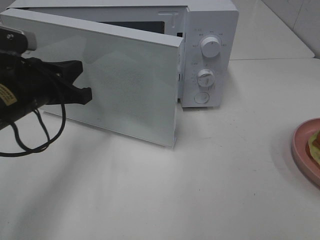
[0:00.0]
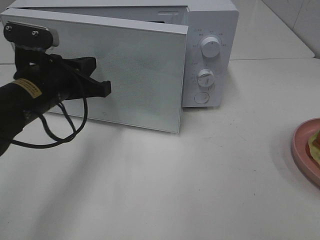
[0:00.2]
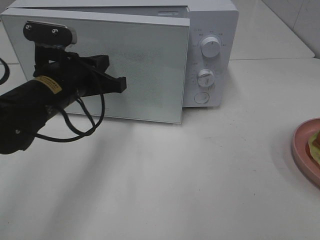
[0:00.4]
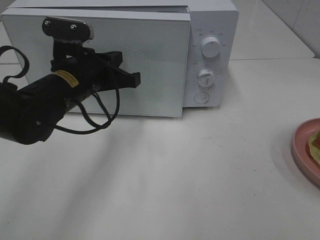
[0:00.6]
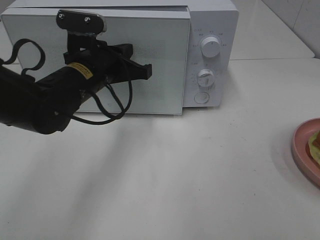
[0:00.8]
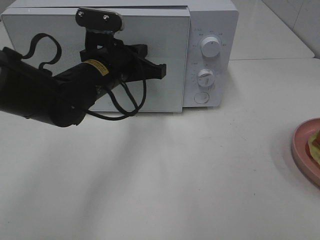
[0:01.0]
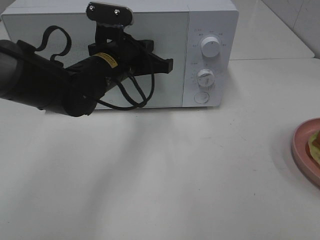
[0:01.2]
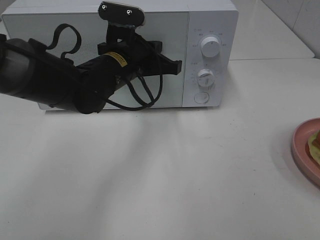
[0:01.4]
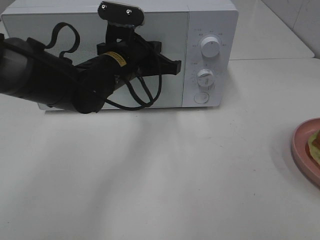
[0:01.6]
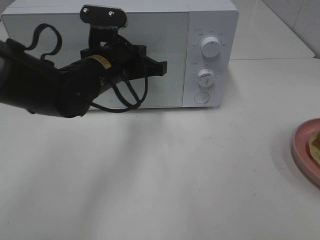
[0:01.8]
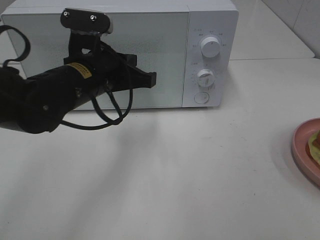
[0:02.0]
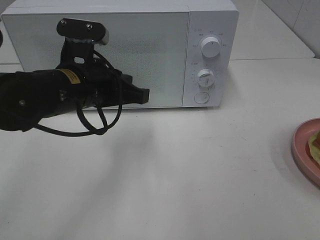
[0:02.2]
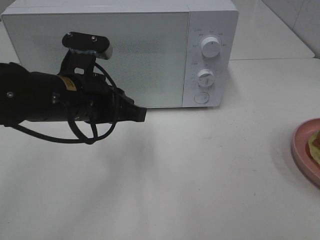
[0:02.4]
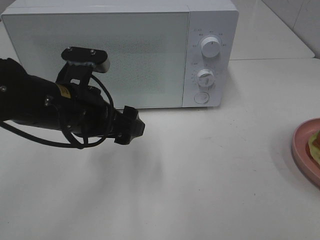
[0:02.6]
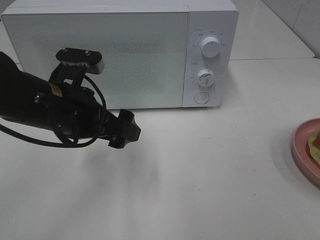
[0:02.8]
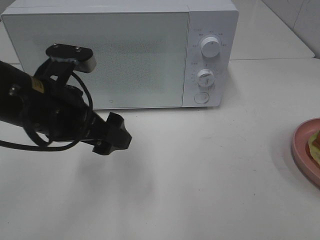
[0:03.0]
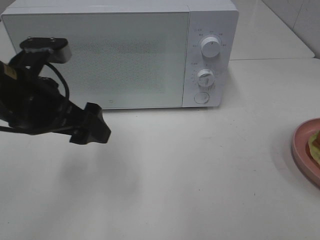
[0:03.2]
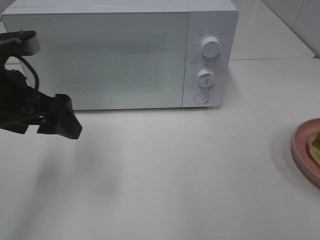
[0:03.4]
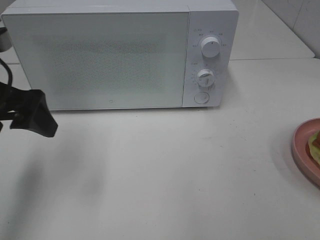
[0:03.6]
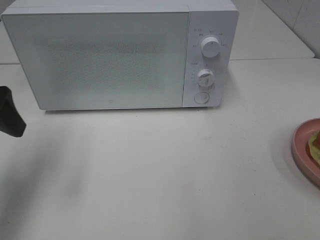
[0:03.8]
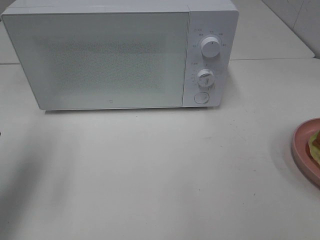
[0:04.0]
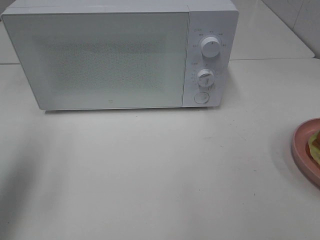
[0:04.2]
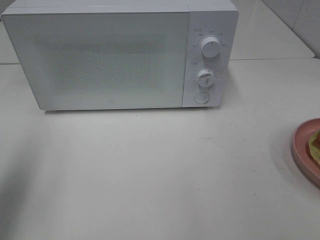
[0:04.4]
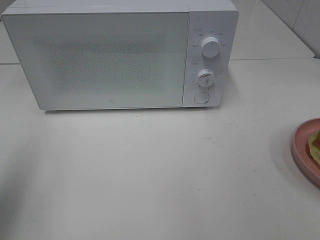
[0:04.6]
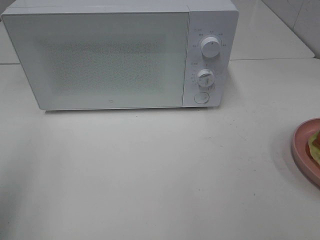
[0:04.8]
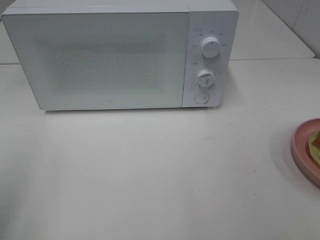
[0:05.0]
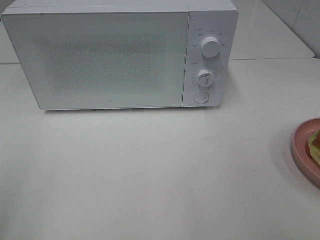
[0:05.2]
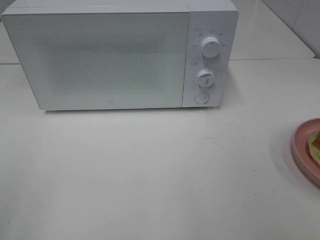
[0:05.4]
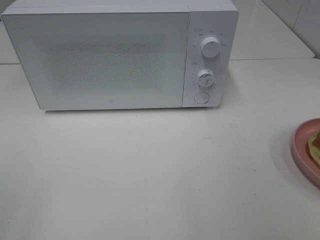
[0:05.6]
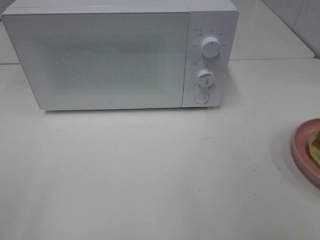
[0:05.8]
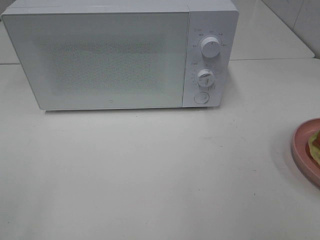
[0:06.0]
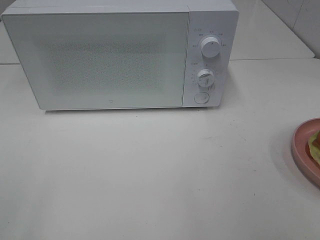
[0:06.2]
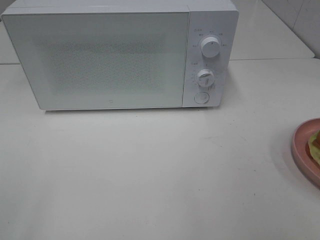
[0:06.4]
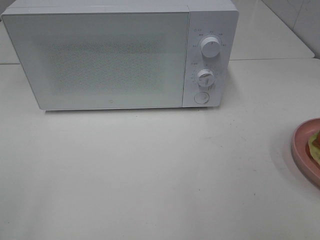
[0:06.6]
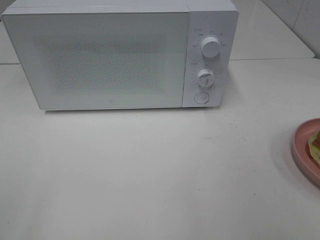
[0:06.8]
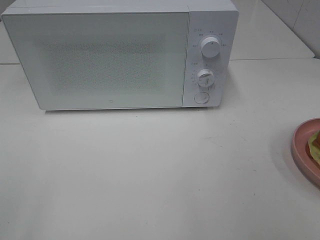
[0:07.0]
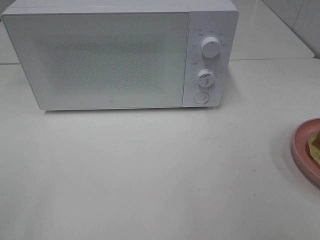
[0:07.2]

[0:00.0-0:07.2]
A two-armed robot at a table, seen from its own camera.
Task of the whole recording: Heat Sandwich.
0:00.0 to 0:01.4: The left gripper moves to the right and forward, roughly 15 cm.
0:01.4 to 0:02.8: The left gripper is displaced backward and to the left by about 15 cm, and opens its fingers.
0:02.8 to 0:04.4: The left gripper shifts about 20 cm to the left and upward.
0:04.4 to 0:05.8: The left gripper heads backward, covering approximately 15 cm.
0:05.8 to 0:07.2: Neither gripper changes place.

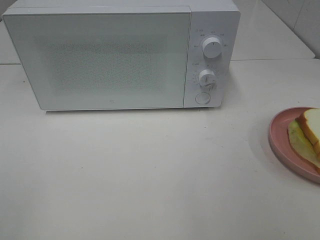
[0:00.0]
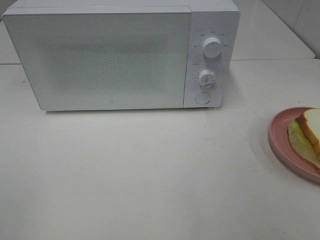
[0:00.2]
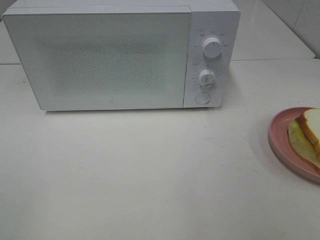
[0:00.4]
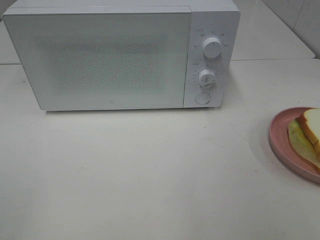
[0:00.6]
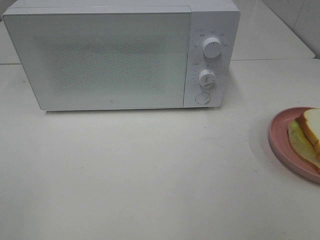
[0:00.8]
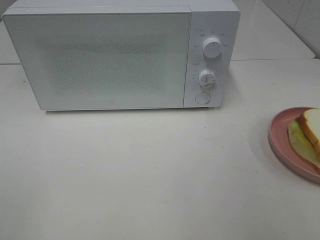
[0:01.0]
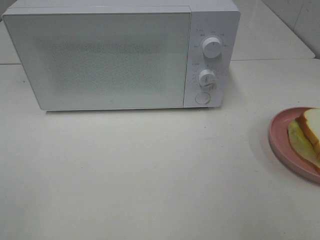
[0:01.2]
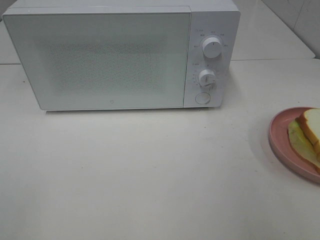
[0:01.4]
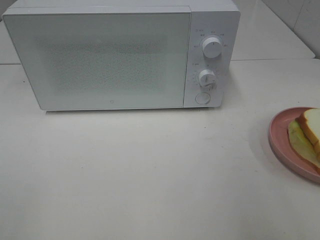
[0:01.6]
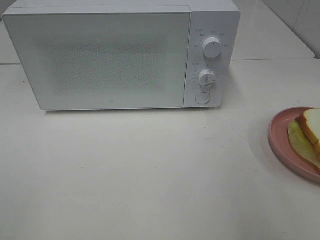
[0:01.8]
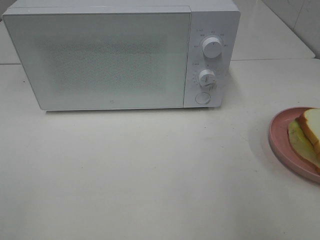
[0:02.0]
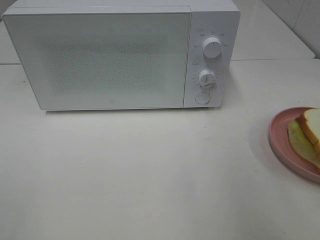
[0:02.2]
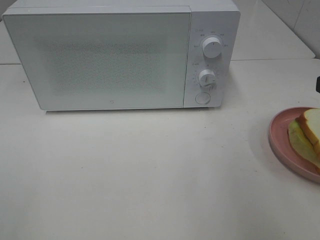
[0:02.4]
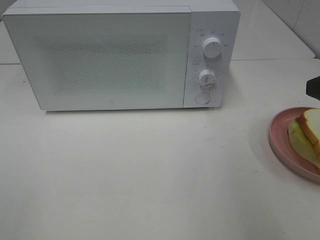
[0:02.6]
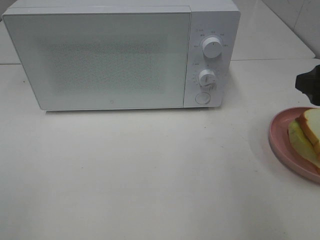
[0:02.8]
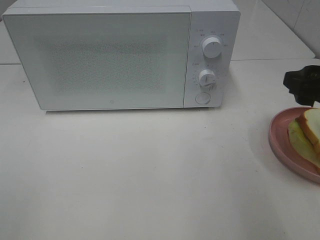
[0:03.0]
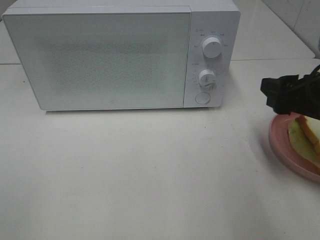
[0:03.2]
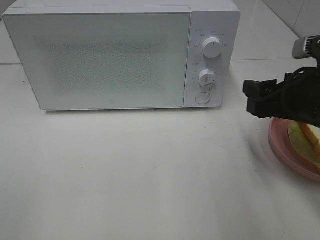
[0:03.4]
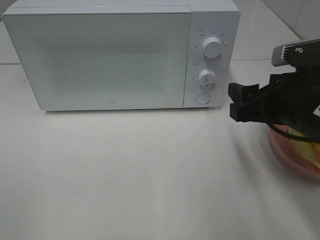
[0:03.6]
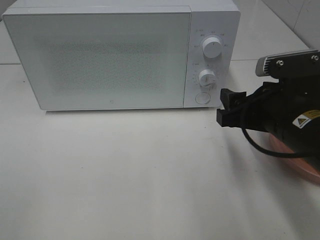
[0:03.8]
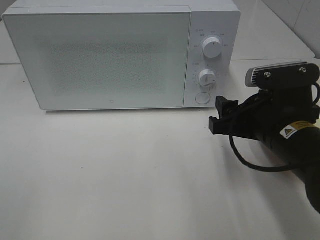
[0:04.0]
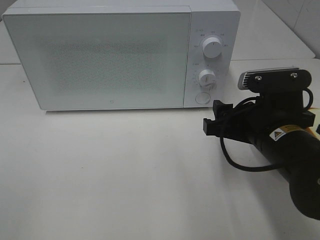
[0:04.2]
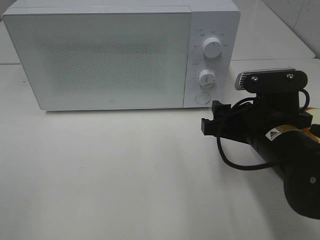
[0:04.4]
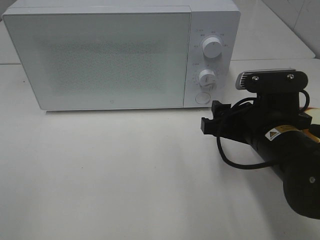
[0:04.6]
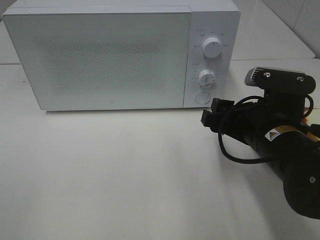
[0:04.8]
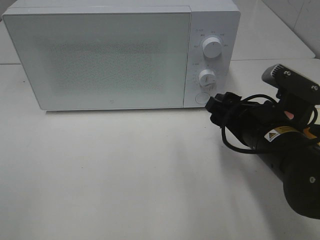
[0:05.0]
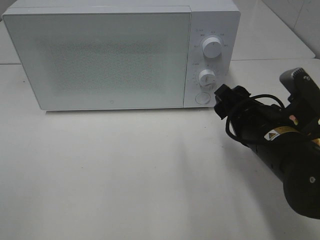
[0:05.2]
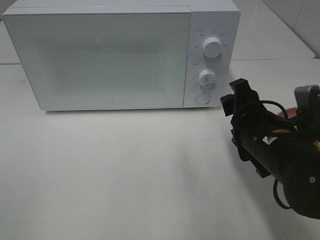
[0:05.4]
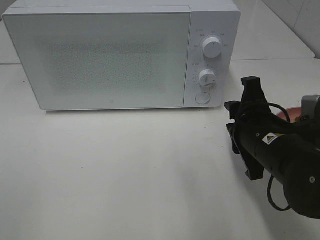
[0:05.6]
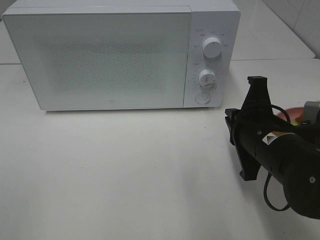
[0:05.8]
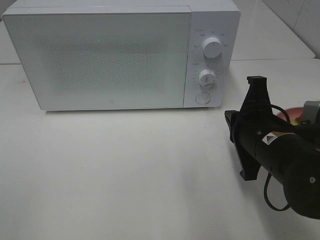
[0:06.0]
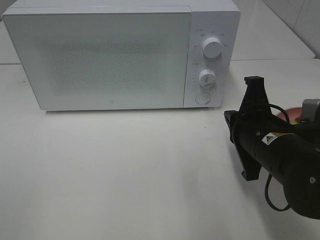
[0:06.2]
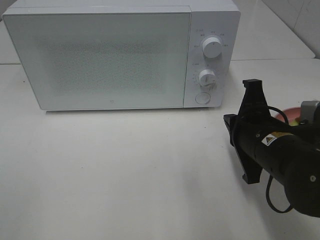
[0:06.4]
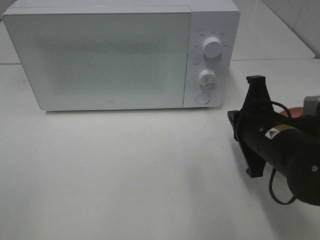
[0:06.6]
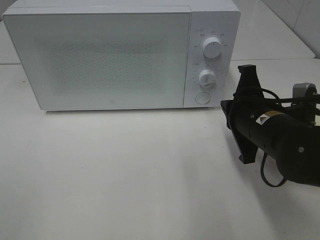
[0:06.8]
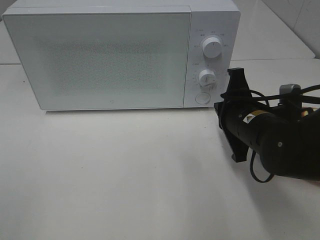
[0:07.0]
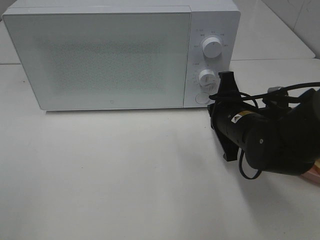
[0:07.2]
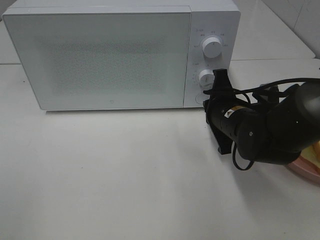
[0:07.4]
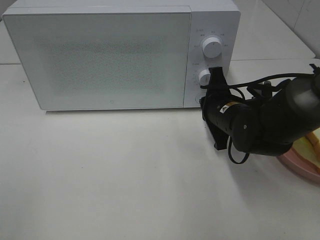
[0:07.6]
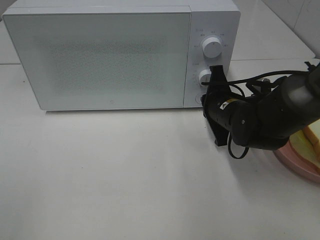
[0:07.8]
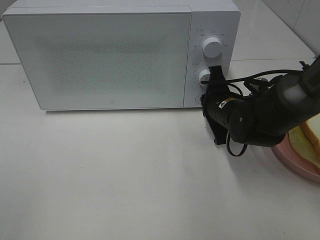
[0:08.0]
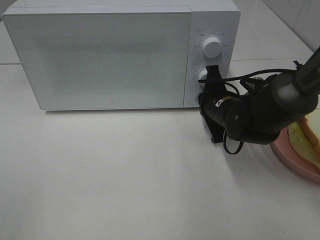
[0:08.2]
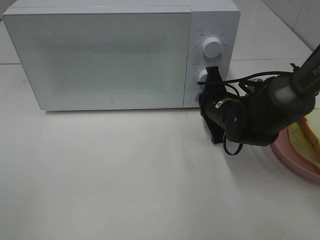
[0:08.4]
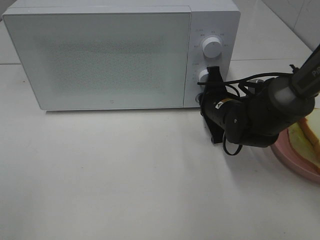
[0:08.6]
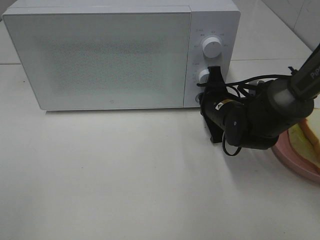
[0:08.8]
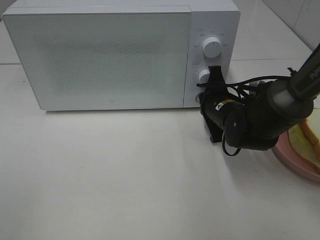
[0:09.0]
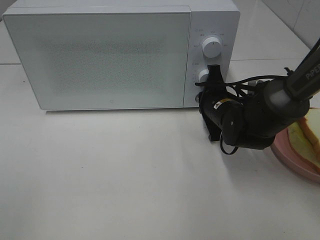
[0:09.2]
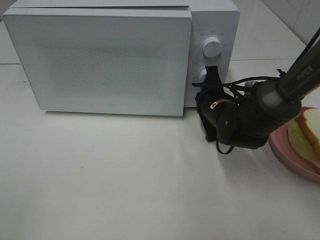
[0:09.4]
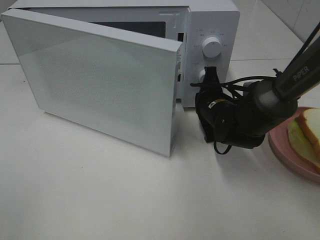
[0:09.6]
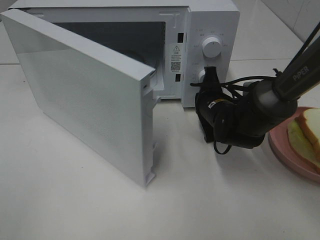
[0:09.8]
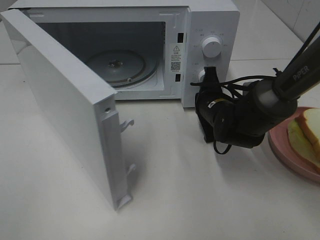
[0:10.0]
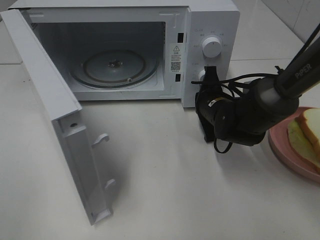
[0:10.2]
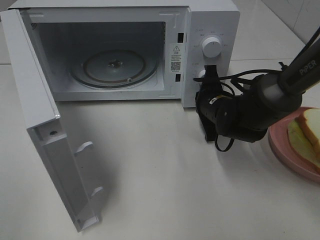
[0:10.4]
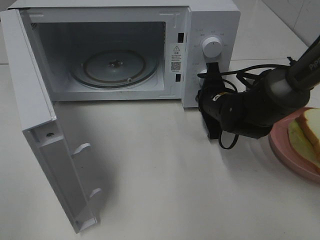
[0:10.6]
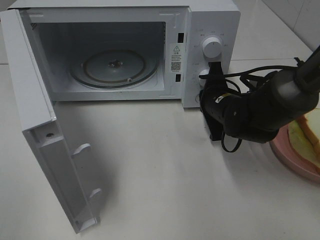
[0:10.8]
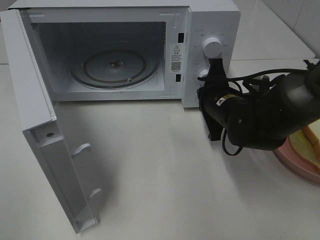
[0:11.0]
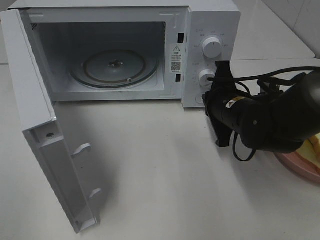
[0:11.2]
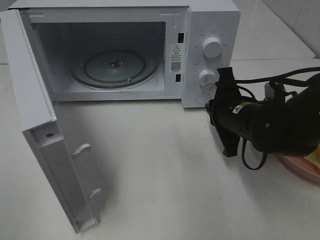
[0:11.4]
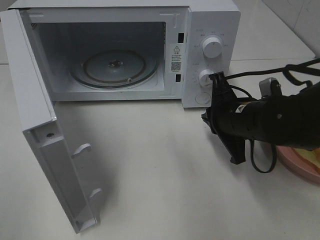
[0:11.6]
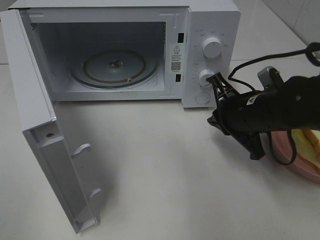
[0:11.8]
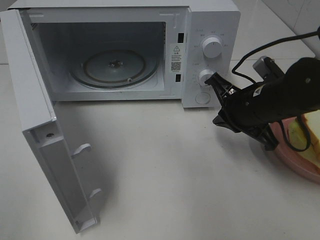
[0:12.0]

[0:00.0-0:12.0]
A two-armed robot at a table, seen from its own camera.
Task of the whole recording: Heat Sandwich.
Step, 0:00.0 to 0:11.2: Right hand: press the switch.
0:01.6 to 0:03.0: The right gripper moves forward and downward, some 15 cm.
0:03.0 to 0:04.4: The right gripper moves to the left and downward, about 15 cm.
0:04.4 to 0:06.0: The right gripper closes up.
0:06.0 to 0:07.6: The right gripper moves forward, some 10 cm.
0:07.6 to 0:09.0: The grippers make only small movements.
0:10.4 to 0:12.0: The right gripper heads backward and upward, covering approximately 10 cm.

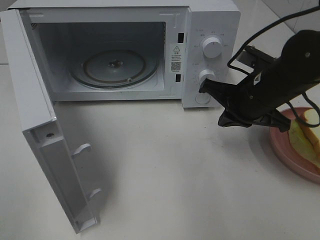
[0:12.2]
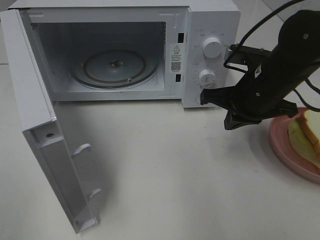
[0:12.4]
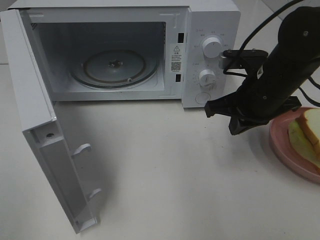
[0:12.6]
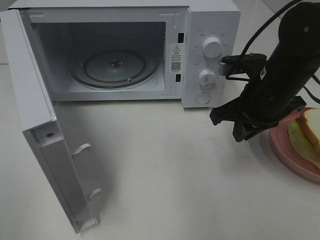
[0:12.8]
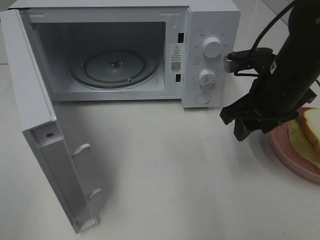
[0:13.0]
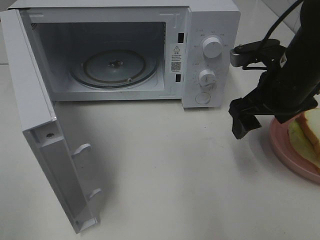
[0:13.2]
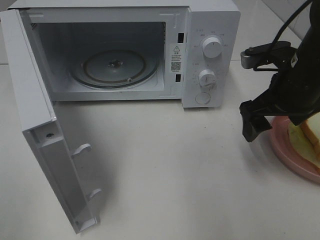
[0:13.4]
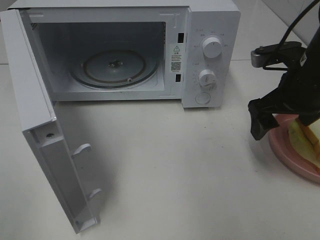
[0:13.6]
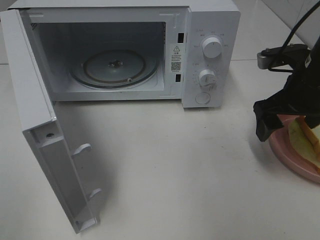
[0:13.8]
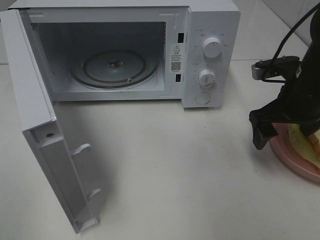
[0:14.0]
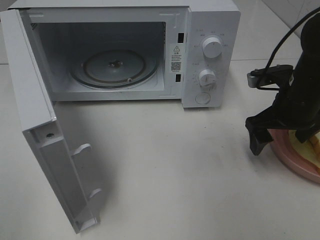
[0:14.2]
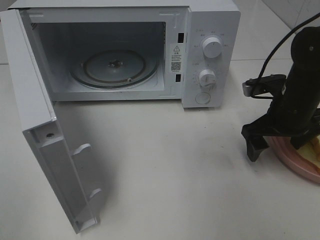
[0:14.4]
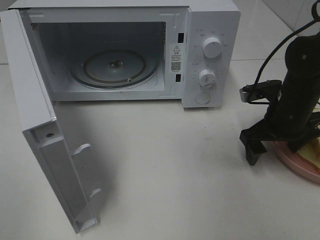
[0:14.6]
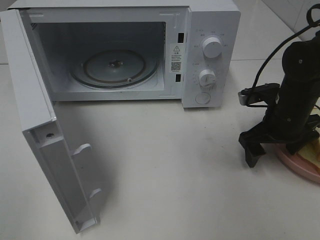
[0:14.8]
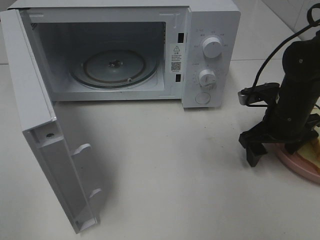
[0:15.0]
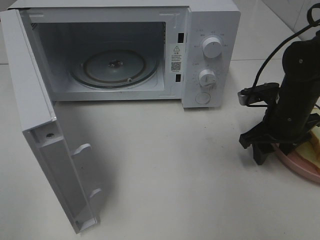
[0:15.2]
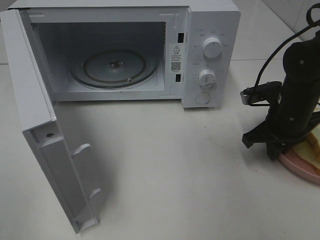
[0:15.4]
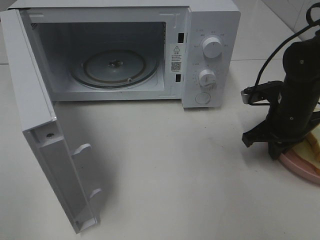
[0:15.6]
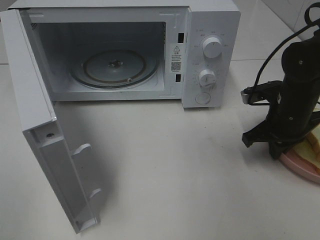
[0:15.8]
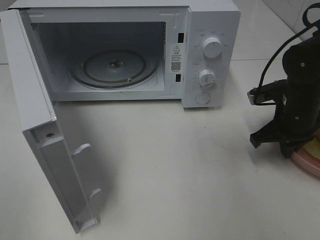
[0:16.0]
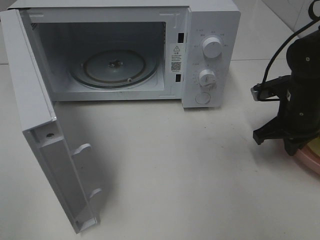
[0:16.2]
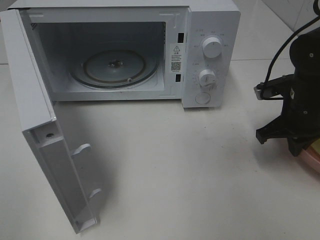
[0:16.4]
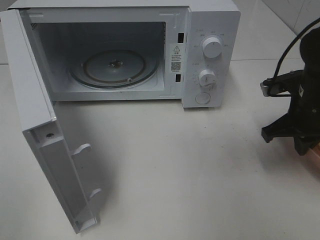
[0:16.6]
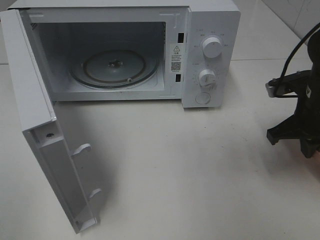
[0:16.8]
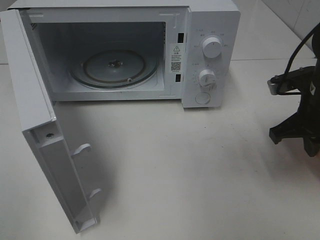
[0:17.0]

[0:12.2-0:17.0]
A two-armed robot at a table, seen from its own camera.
Task of the whole recording: Heat Sandwich.
Step, 0:12.2 to 0:15.8: Right hand: grab the plate with the sandwich.
0:12.2 to 0:13.8: The right gripper moves to the right, approximately 5 cm, and opens up.
0:13.8 to 0:15.4: The right gripper is displaced downward by approximately 10 cm, and closes its fingers.
0:15.4 to 0:17.0: The right gripper goes some 5 cm upward.
